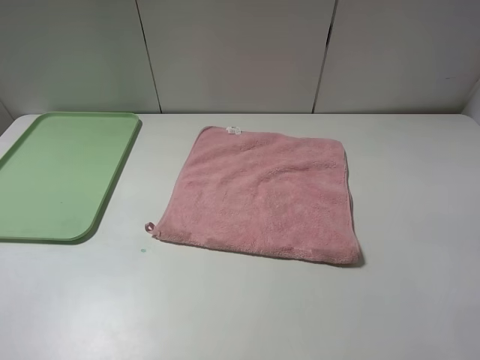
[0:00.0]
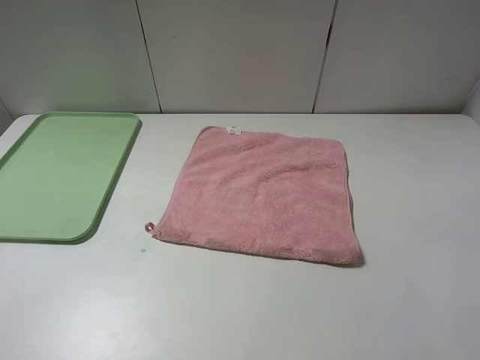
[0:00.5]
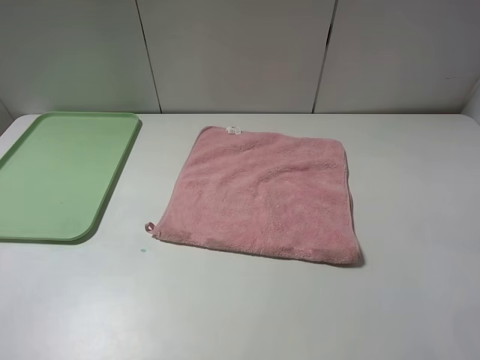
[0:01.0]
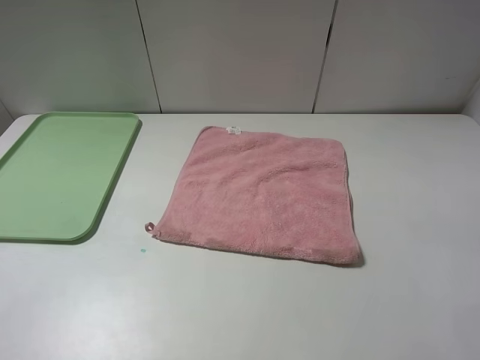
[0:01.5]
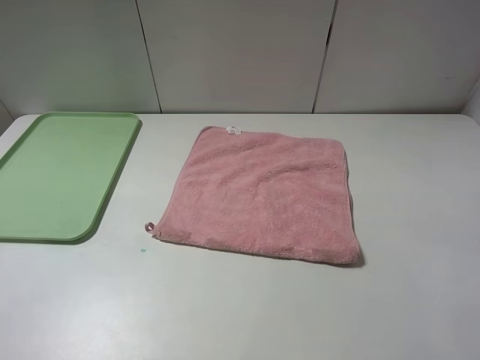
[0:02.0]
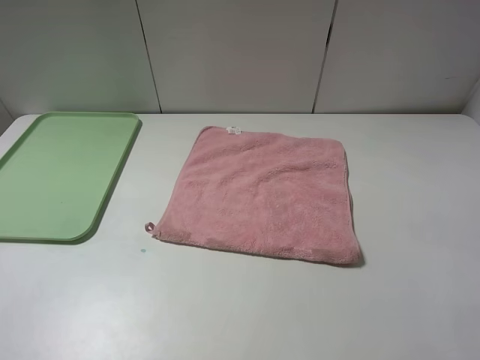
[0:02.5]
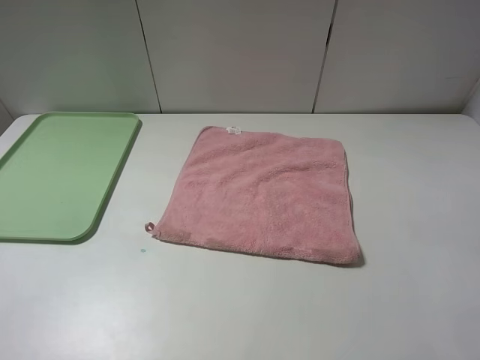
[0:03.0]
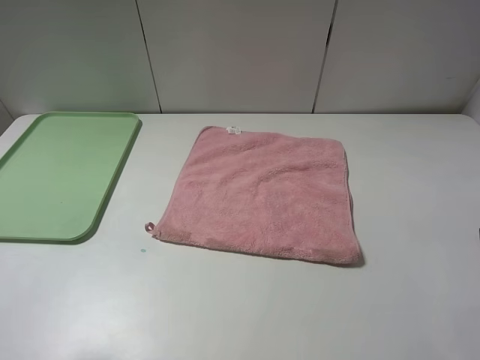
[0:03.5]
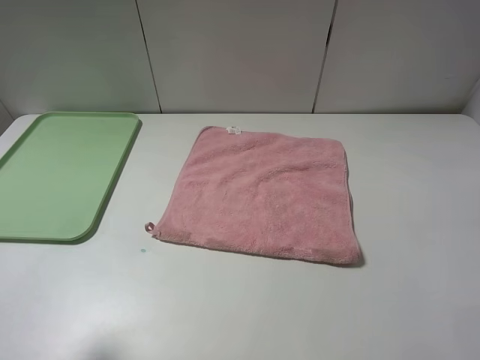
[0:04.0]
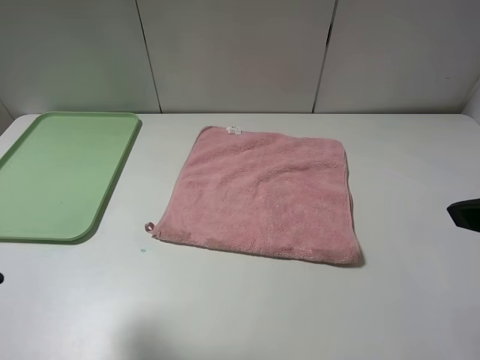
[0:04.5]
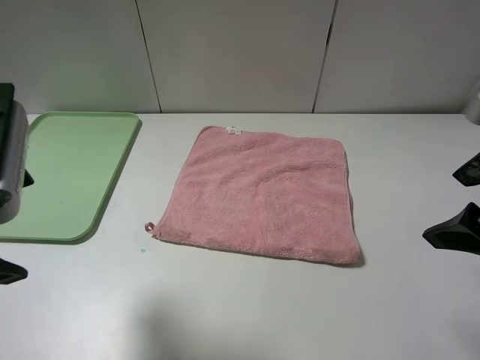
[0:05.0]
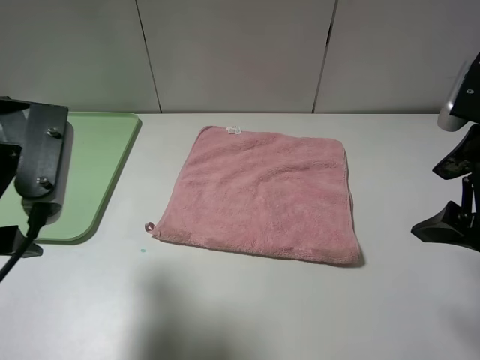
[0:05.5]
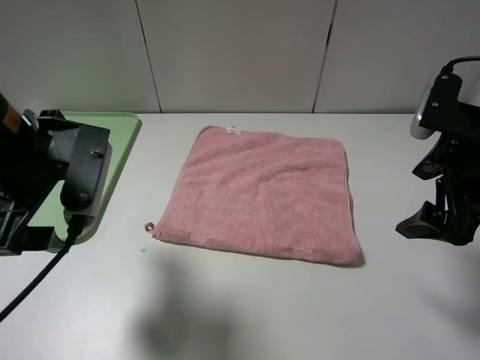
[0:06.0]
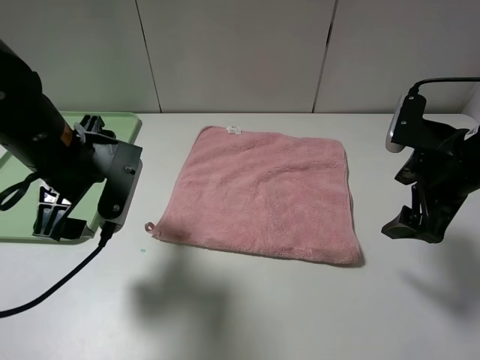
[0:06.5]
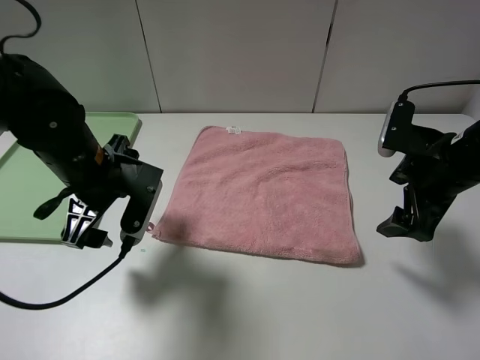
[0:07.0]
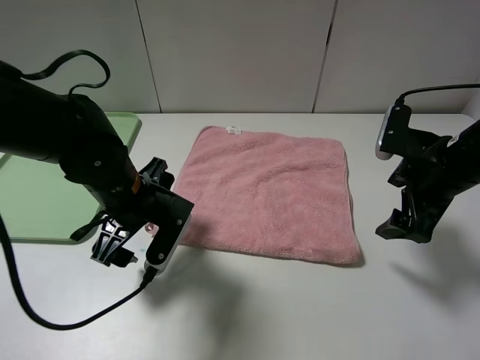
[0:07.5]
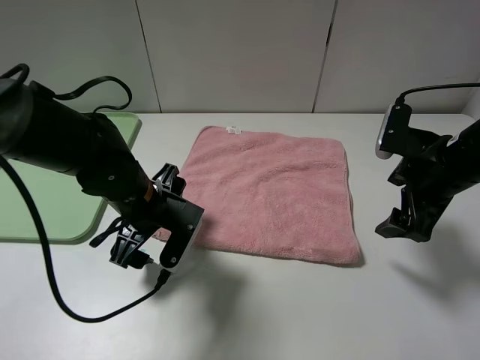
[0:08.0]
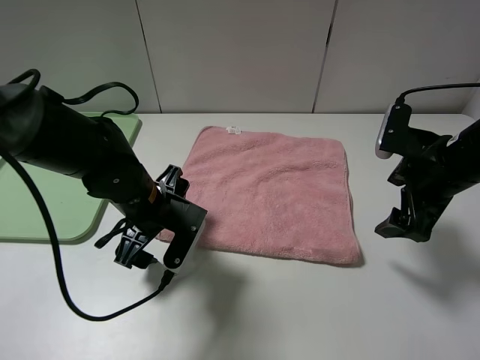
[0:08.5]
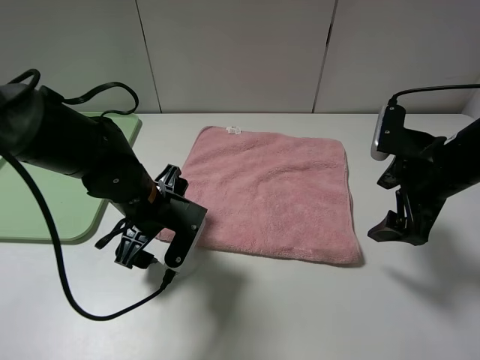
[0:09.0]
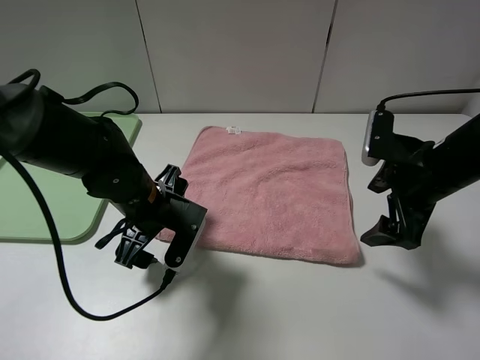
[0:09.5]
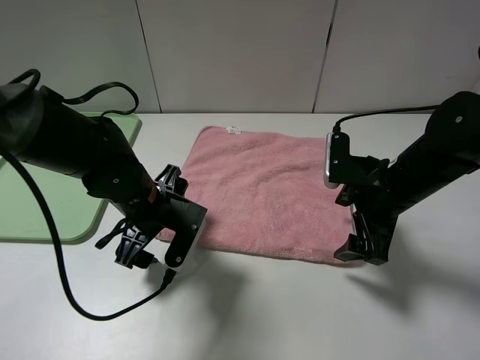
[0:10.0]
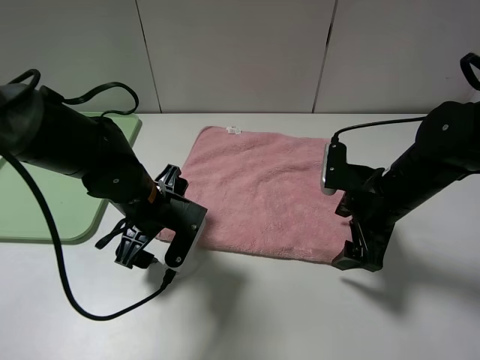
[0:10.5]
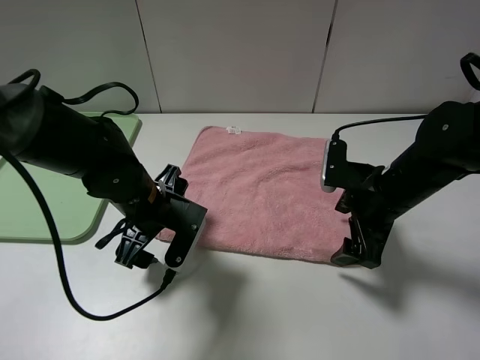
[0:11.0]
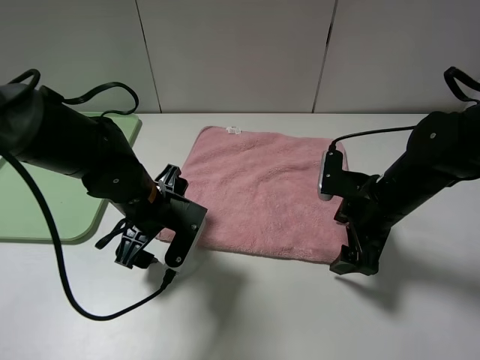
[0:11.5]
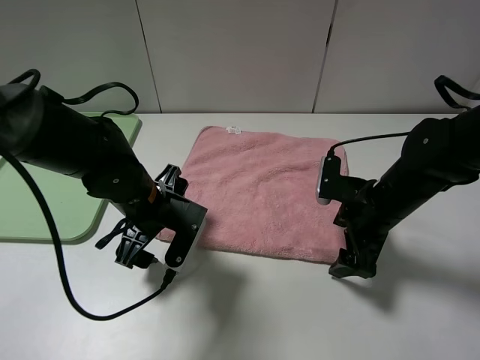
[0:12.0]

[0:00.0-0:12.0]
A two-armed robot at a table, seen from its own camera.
0:00.0 to 0:02.0: Both grippers stay about where they are.
0:04.0 to 0:06.0: The left gripper travels forward, to the right and downward by approximately 15 cm. Meanwhile the right gripper moves forward and downward, roughly 15 cm.
0:06.0 to 0:08.0: The right gripper is displaced downward by roughly 5 cm. Meanwhile the left gripper shifts roughly 15 cm downward and to the right.
0:08.0 to 0:10.0: The right gripper heads to the left, covering about 5 cm.
0:10.0 to 0:12.0: The grippers move only a little.

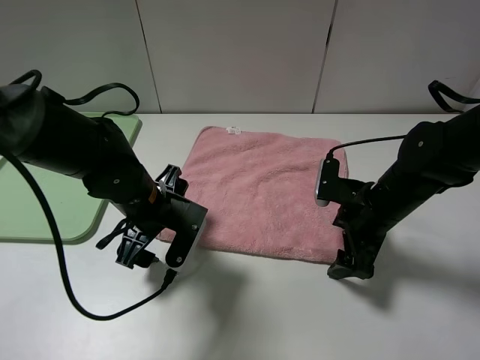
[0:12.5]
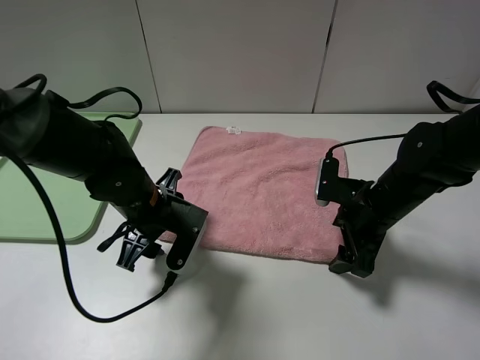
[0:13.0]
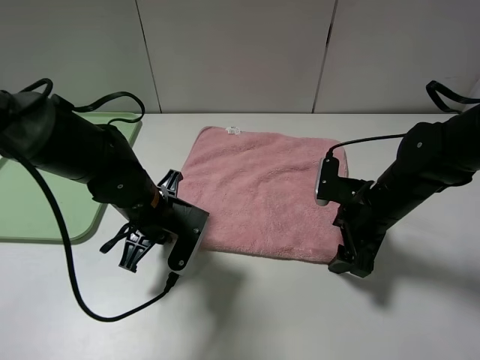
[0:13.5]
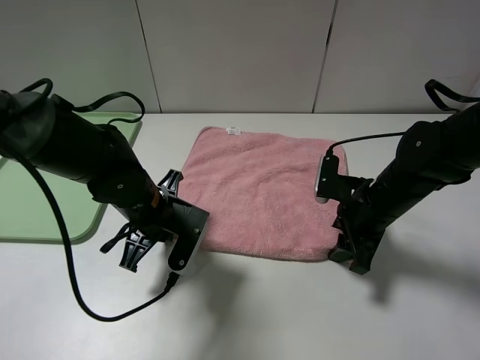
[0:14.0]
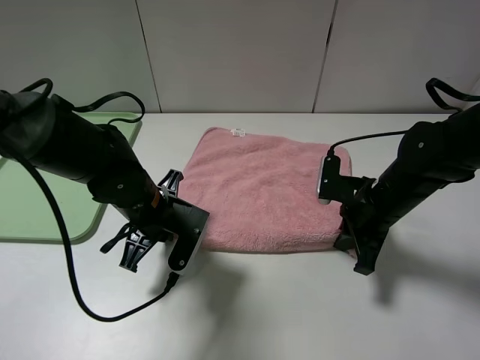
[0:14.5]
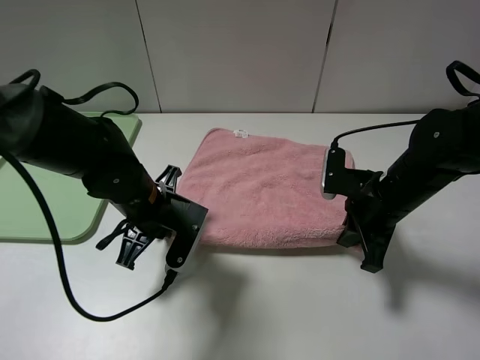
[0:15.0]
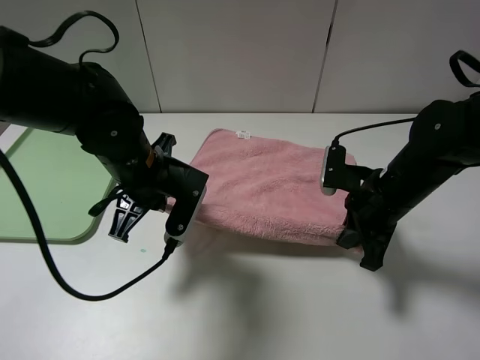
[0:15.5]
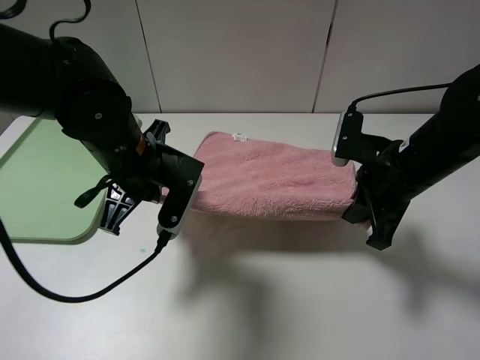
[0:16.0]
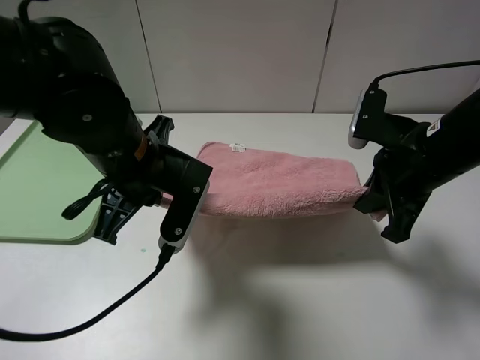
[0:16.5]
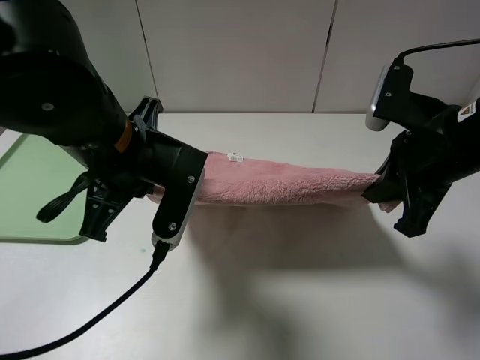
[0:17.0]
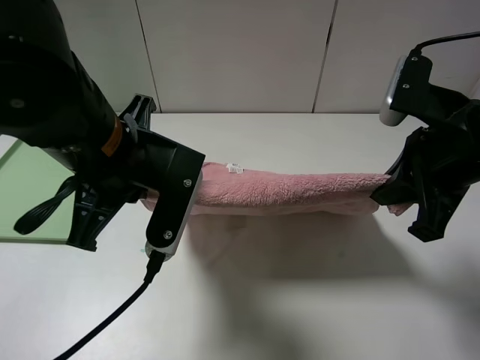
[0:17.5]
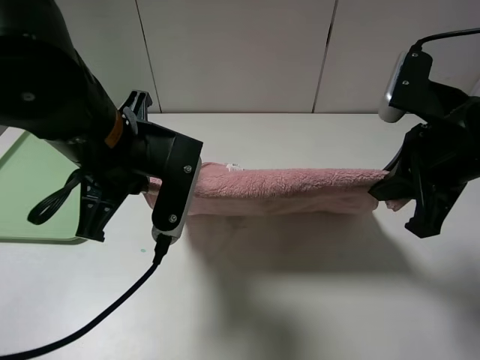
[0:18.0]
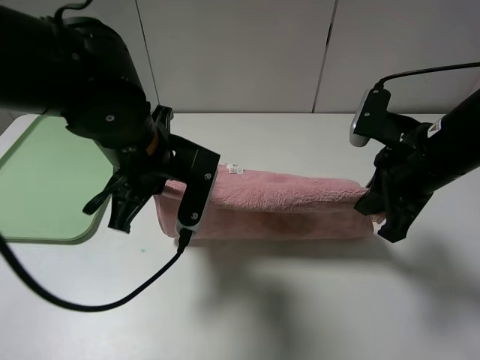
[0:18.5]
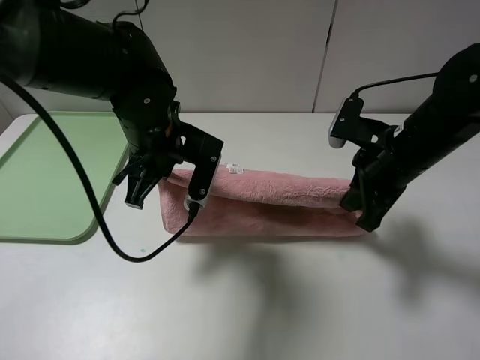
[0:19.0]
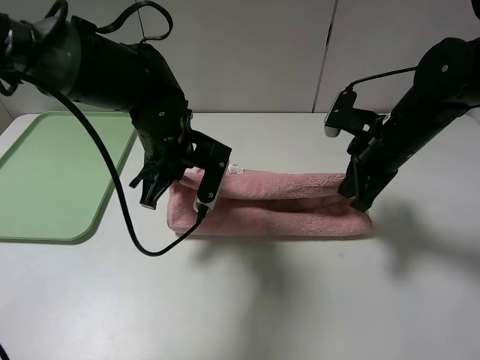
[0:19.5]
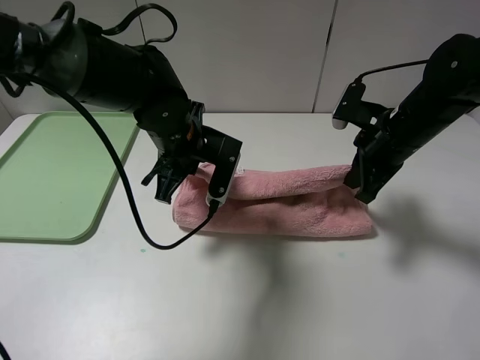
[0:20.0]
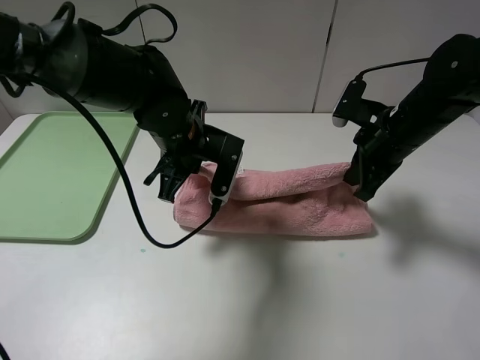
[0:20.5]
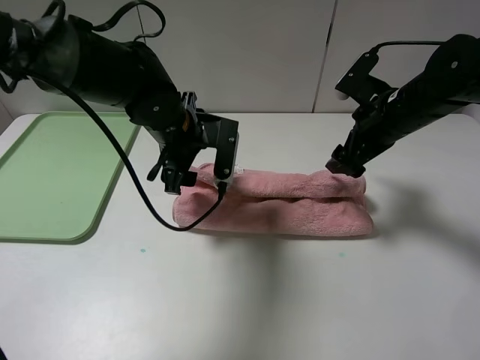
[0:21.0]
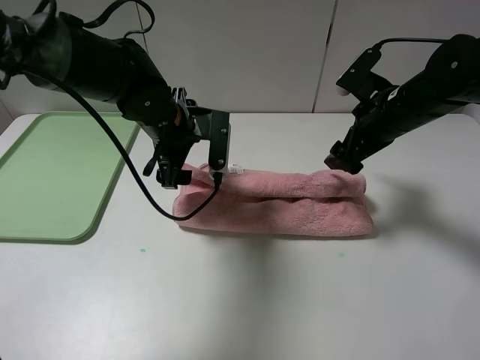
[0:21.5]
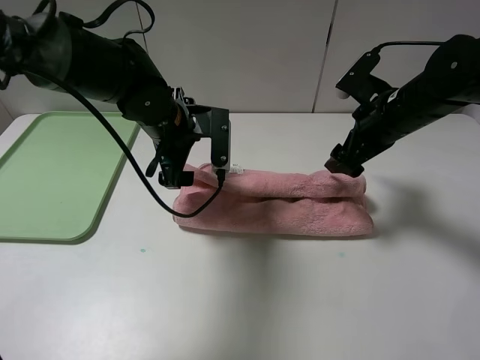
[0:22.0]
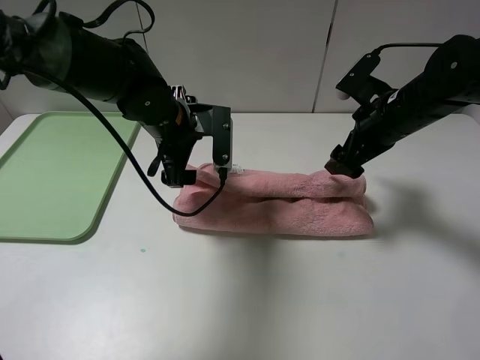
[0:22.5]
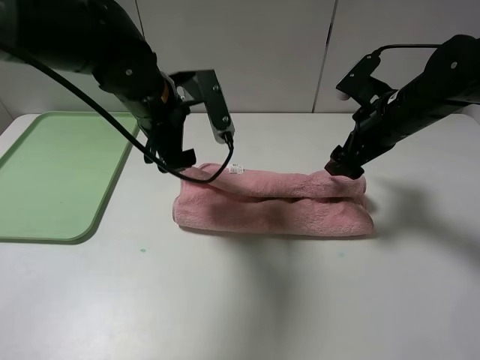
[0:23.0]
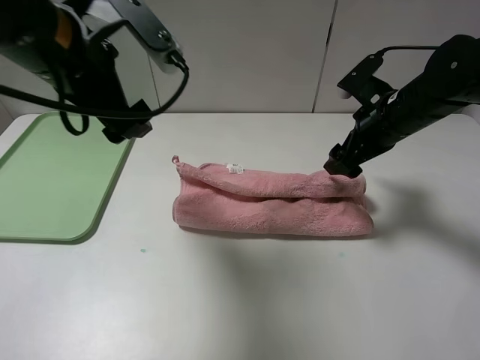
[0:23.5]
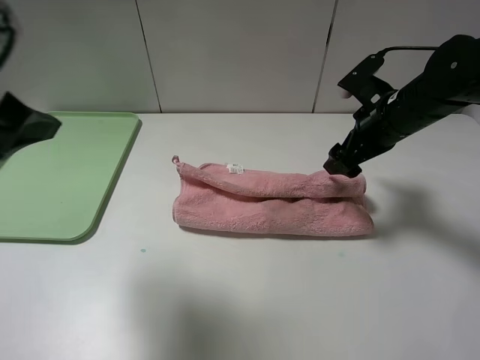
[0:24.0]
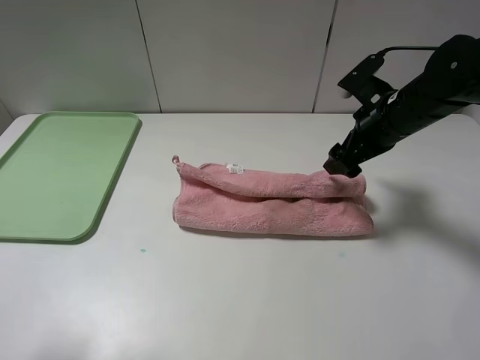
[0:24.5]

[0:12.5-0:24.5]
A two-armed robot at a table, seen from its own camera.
0:12.5 to 0:14.5: The right gripper closes; the left gripper closes.
0:14.5 to 0:16.5: The two grippers go roughly 10 cm upward.
0:16.5 to 0:18.5: There are only small adjustments of the grippers.
0:18.5 to 0:20.5: The two grippers go about 10 cm forward.
0:20.5 to 0:22.5: The left gripper opens. The right gripper opens up.
0:22.5 to 0:24.5: The left gripper moves backward, to the left and upward, approximately 40 cm.

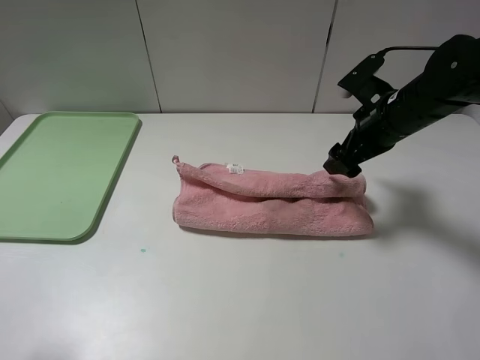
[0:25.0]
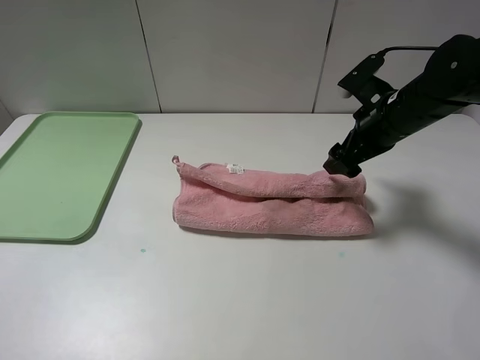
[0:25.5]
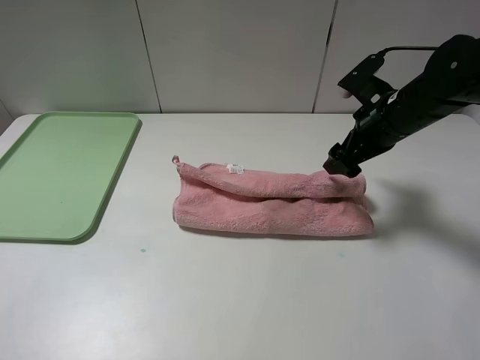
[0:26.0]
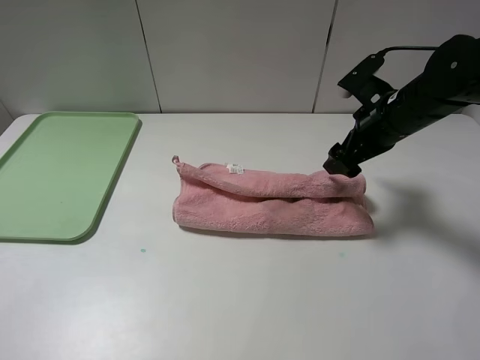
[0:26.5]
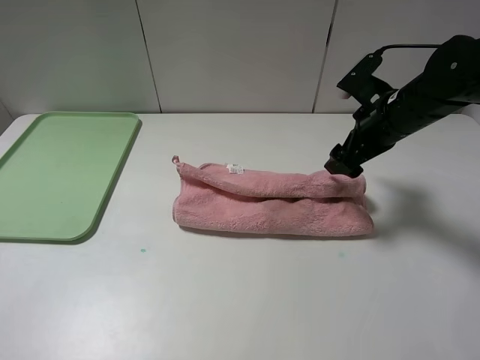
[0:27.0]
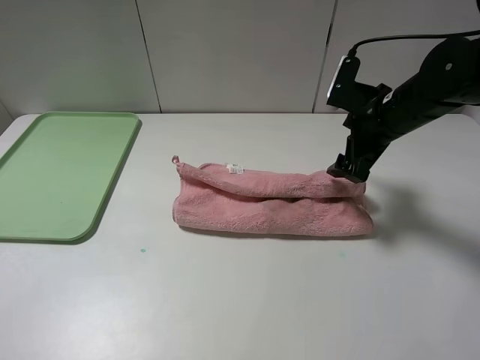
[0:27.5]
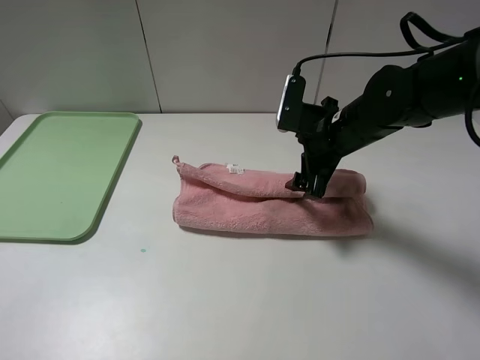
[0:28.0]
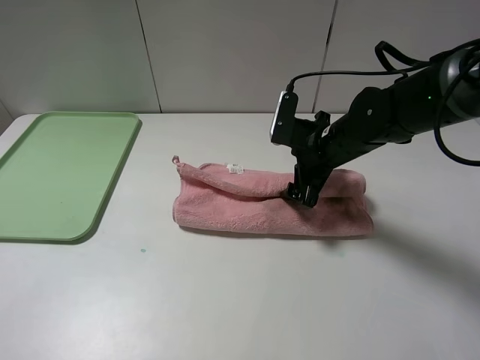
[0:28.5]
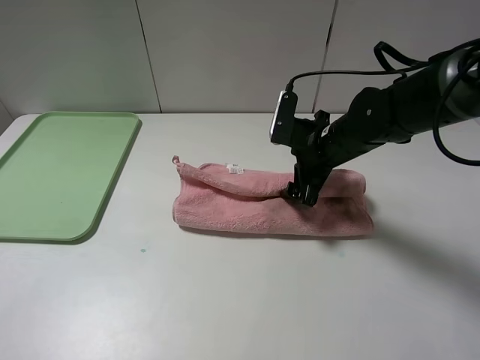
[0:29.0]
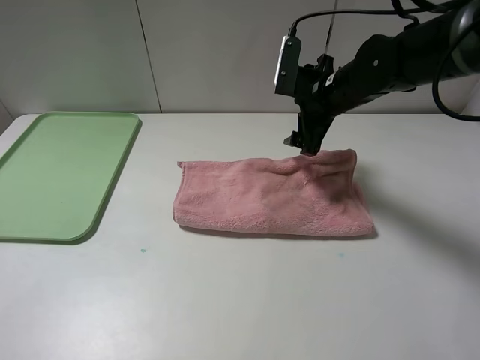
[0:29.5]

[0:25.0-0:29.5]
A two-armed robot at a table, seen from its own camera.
0:27.0 to 0:29.5: The right gripper goes about 5 cm to the left.
